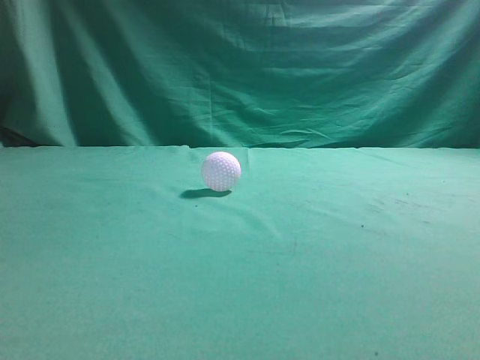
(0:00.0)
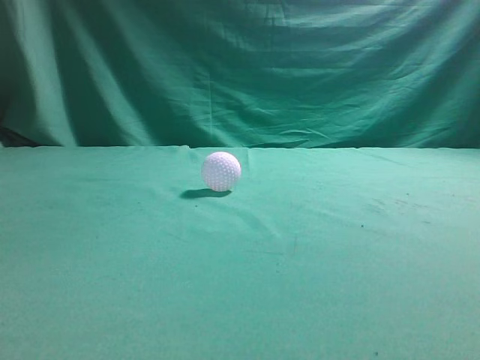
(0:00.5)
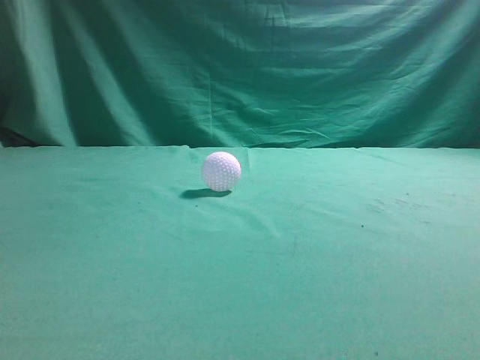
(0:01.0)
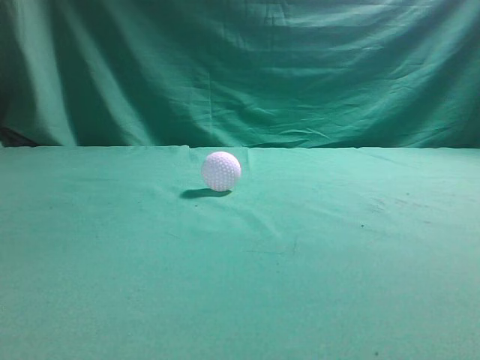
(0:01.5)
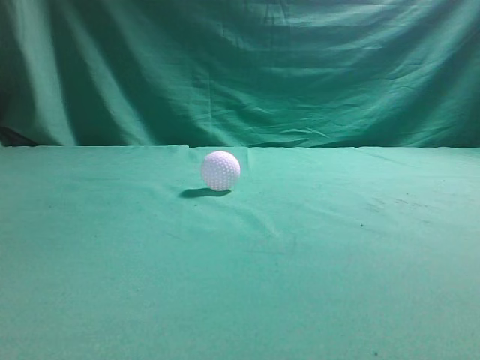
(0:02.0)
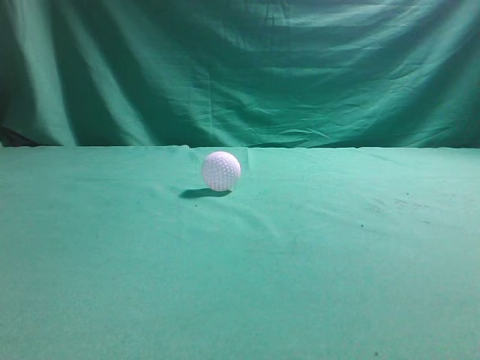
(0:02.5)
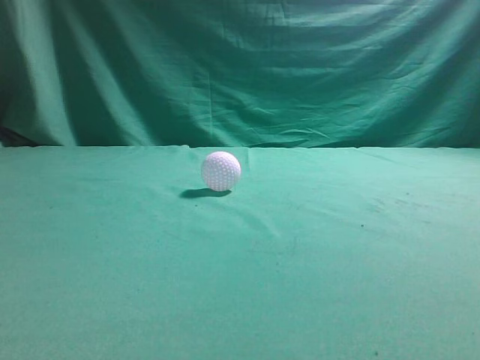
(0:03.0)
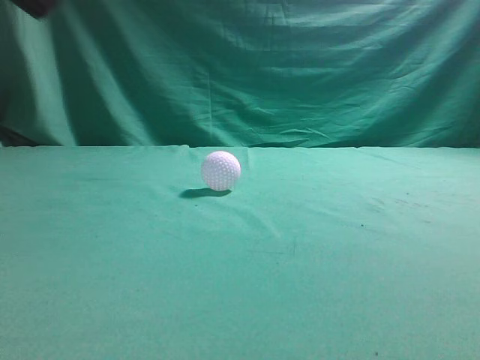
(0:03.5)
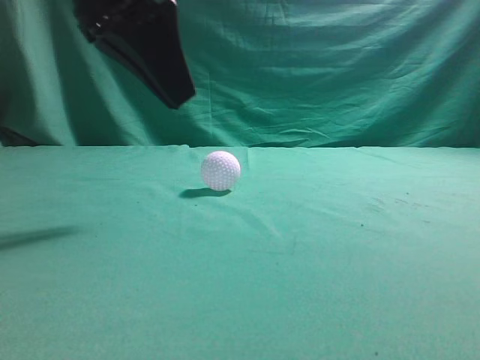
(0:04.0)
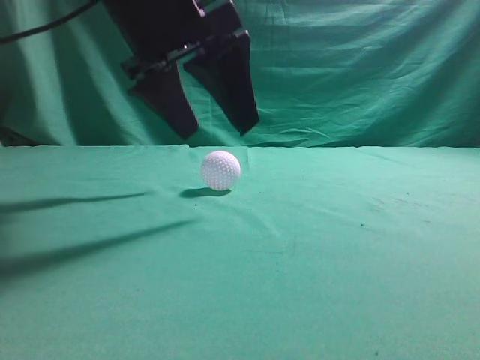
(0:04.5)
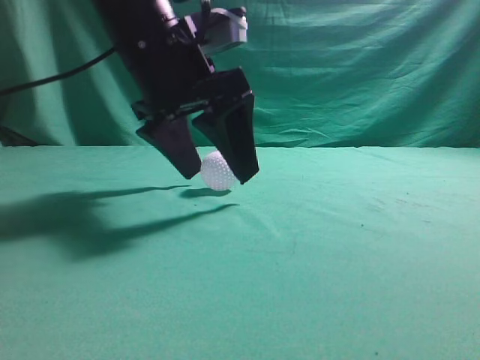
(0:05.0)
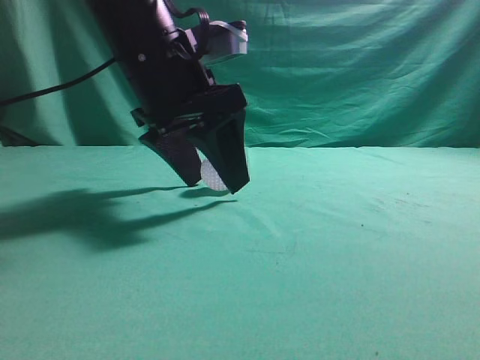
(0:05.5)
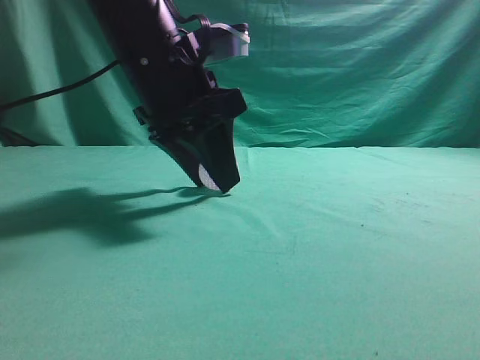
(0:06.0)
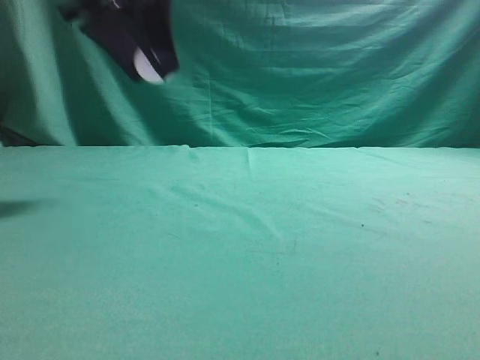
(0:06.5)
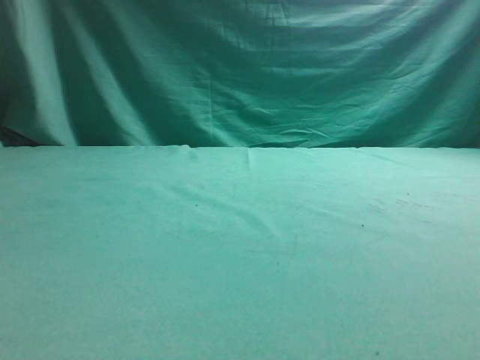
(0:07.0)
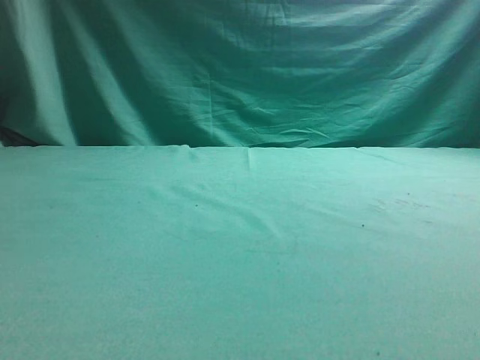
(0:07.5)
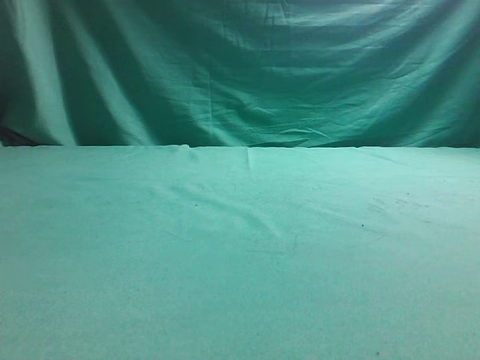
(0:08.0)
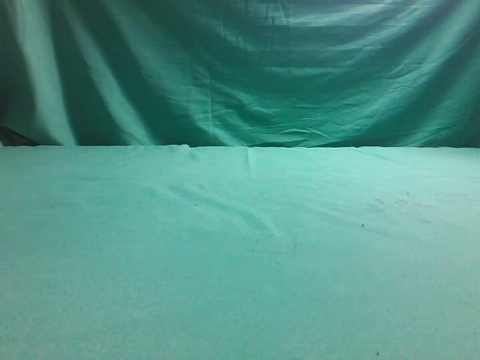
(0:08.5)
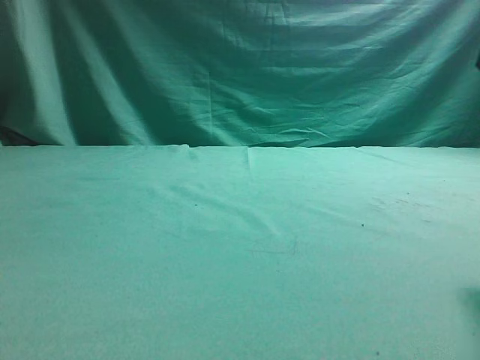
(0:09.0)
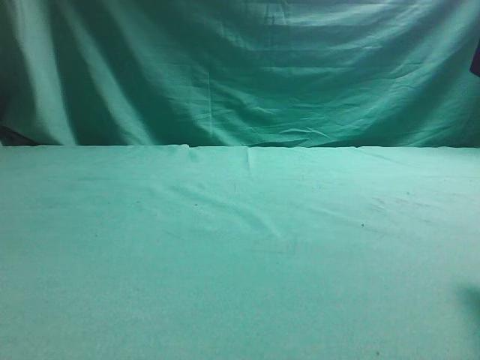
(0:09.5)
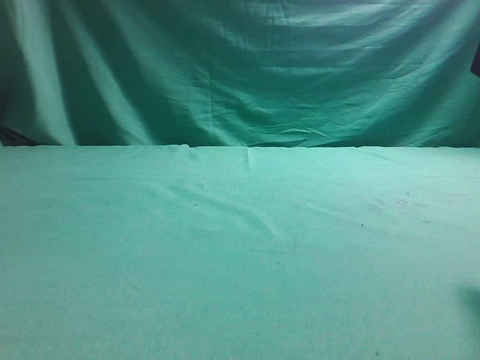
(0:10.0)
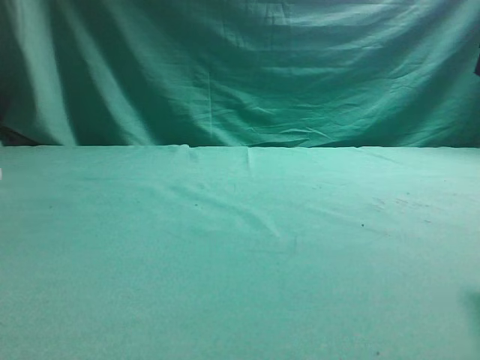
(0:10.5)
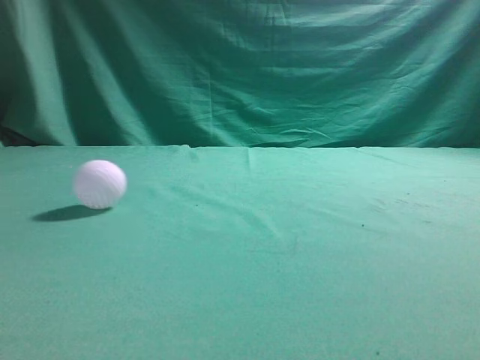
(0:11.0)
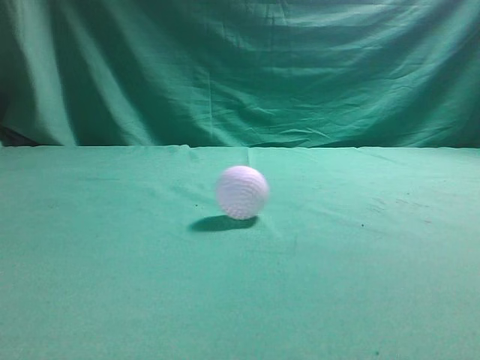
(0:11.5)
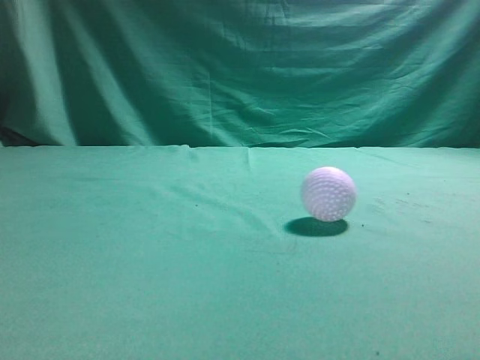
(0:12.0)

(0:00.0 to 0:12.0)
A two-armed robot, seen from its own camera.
Task of the whole recording: pick up the ball and place it on the plate, then pick up the ball from the plate and put it in the center of the table.
Step, 0:00.0 - 0:06.0: Grab the spherical object with your left arm.
Step, 0:06.5 - 0:10.0: Place the sphere on the white object.
0:02.0 - 0:04.0: The left gripper is displaced forward and to the right by approximately 30 cm.
0:04.0 - 0:06.0: The left gripper goes approximately 10 cm downward and forward, and opens up.
0:06.0 - 0:08.0: The right gripper is displaced upward and forward by approximately 10 cm. The left gripper heads to the left, covering roughly 25 cm.

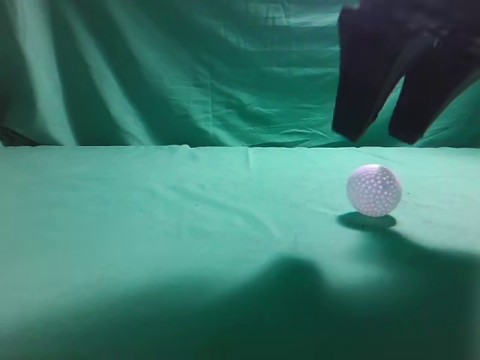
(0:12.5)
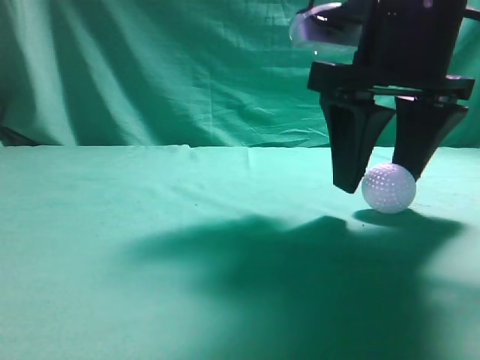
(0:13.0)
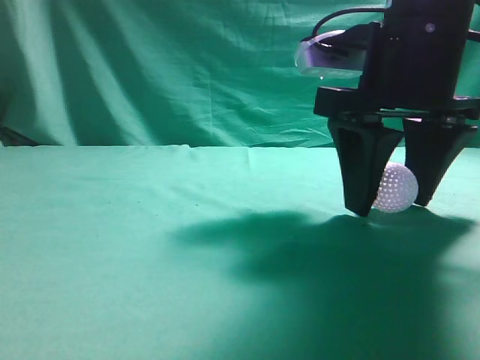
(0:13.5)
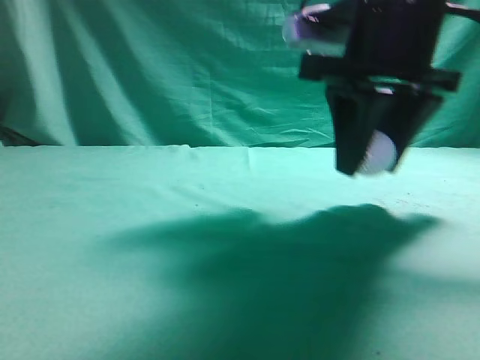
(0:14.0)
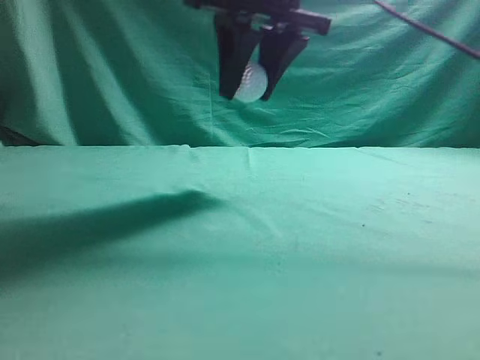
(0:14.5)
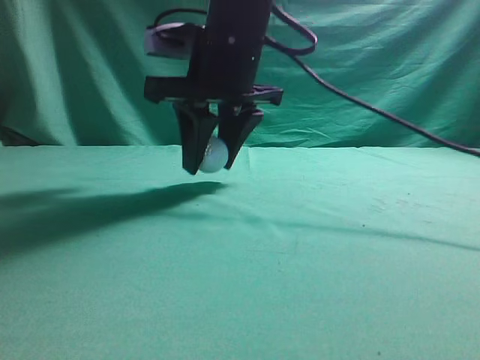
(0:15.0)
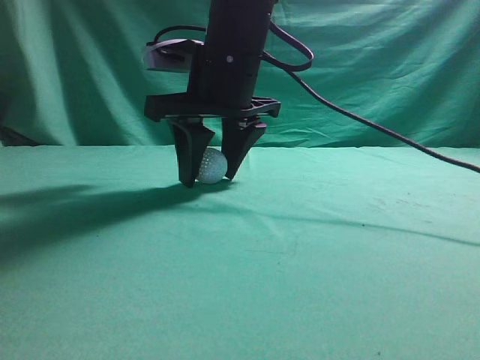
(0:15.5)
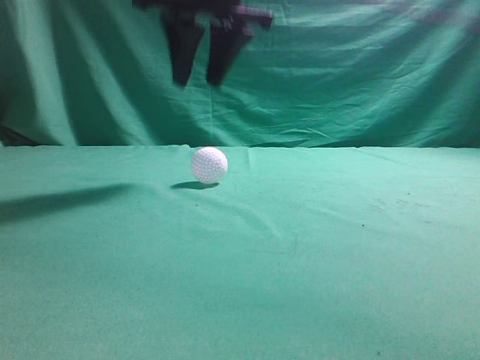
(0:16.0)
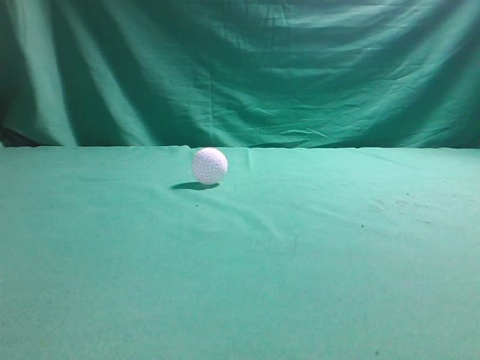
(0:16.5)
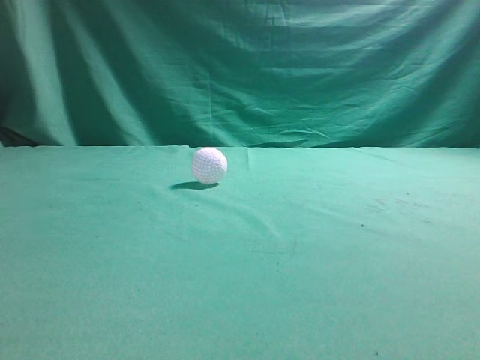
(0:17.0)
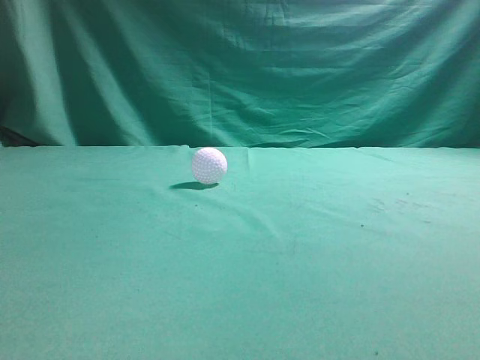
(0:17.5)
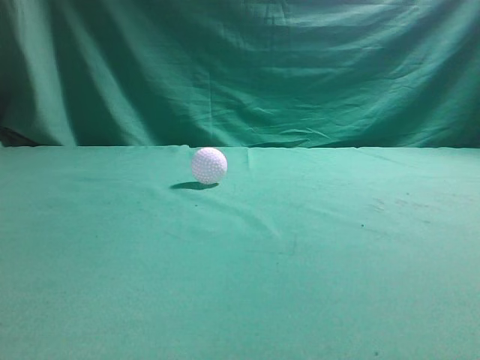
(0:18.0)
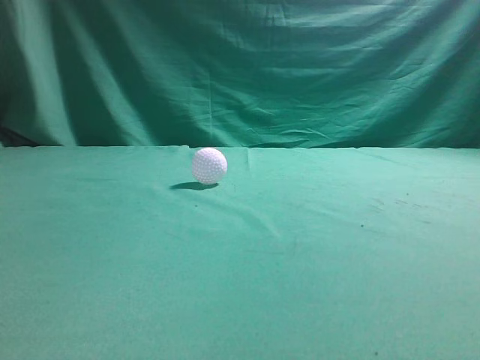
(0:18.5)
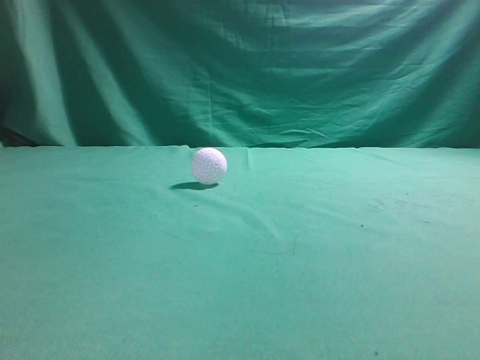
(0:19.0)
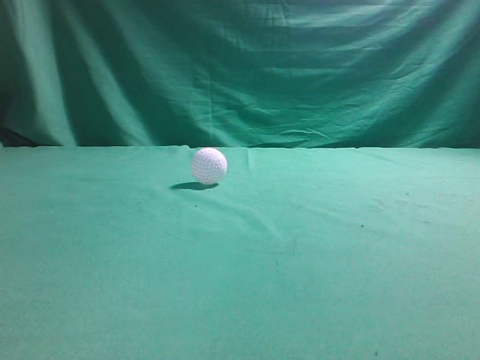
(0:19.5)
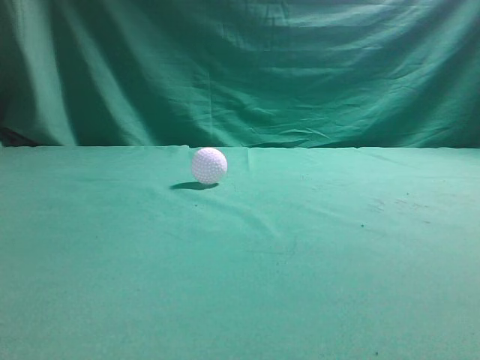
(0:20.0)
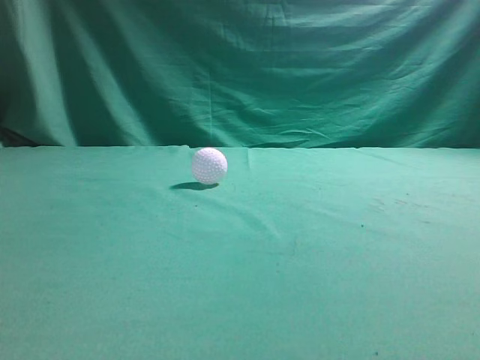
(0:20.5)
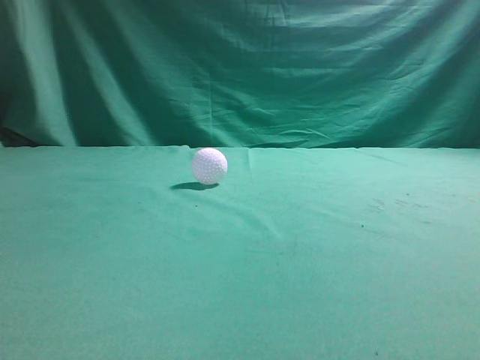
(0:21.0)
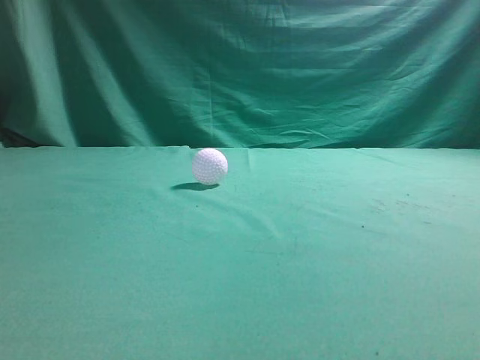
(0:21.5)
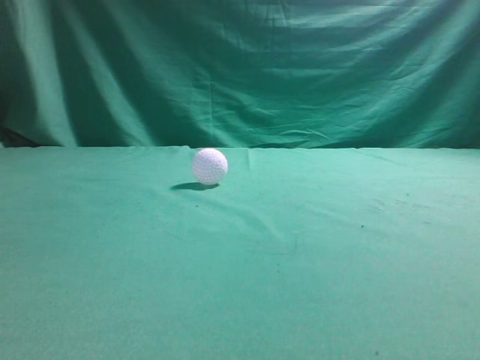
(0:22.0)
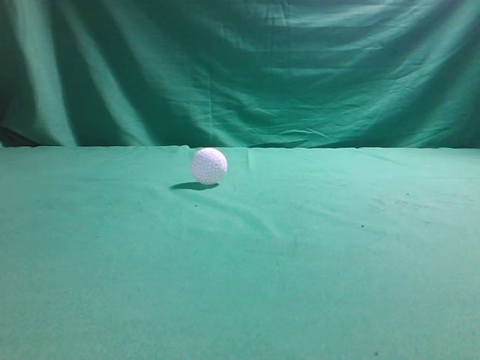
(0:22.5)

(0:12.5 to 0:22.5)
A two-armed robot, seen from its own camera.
Task of the whole recording: pick up the ball and place it on the plate, then pick up the ball from the plate and put it in the center of the table.
Step, 0:14.5 - 0:15.5: Put the picked-up object on the table.
0:12.5 - 0:14.5: The right gripper travels forward and to the left by about 15 cm.
0:14.5 - 0:16.5: The right gripper travels upward by about 20 cm, and closes.
